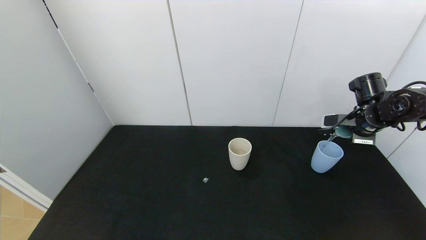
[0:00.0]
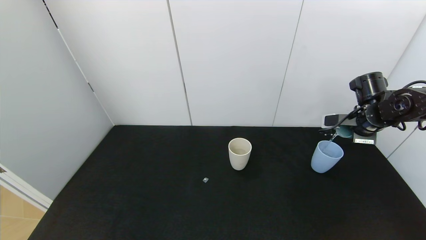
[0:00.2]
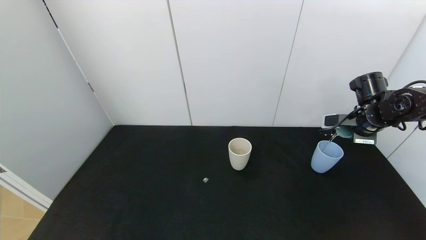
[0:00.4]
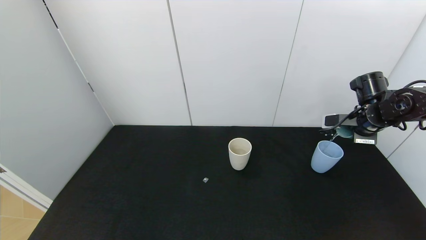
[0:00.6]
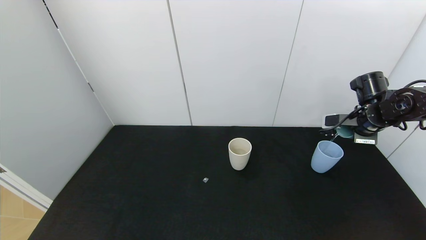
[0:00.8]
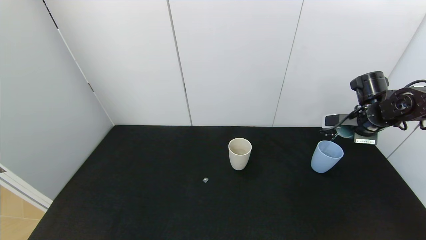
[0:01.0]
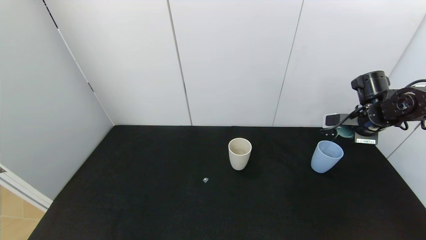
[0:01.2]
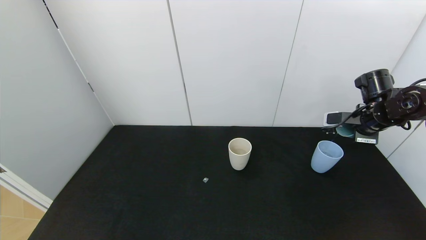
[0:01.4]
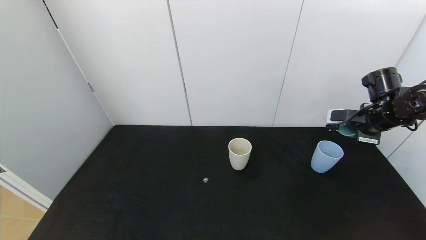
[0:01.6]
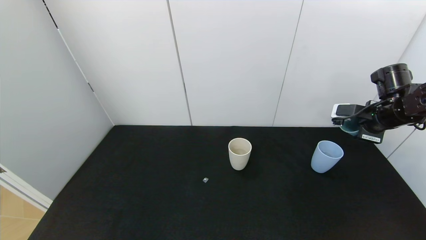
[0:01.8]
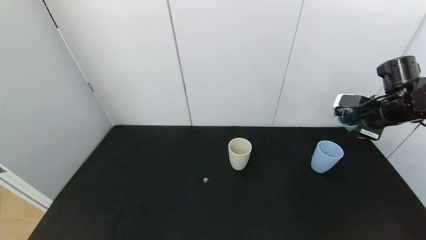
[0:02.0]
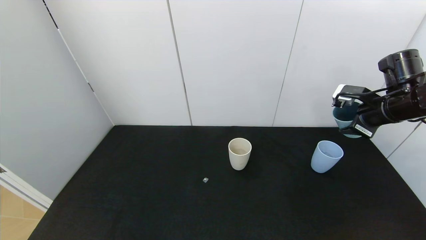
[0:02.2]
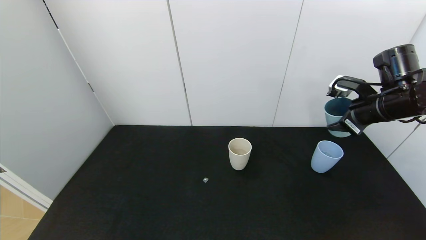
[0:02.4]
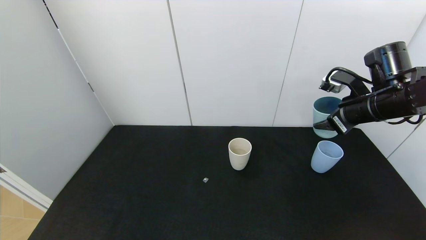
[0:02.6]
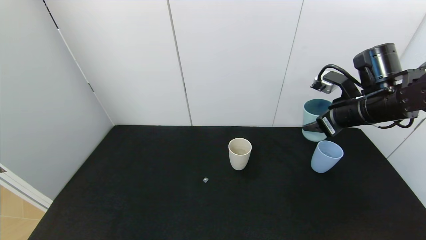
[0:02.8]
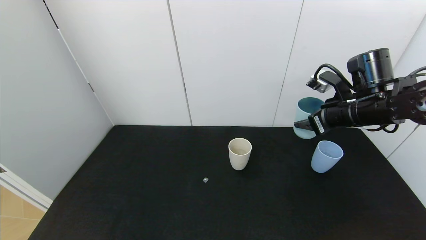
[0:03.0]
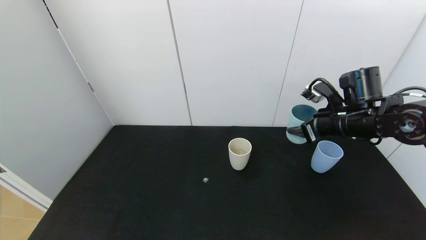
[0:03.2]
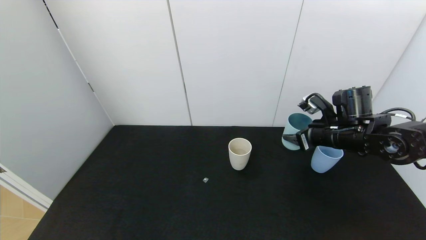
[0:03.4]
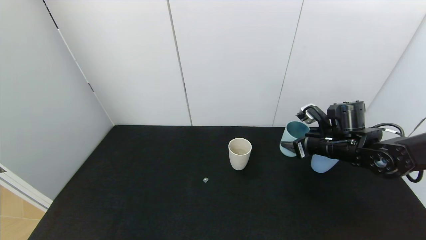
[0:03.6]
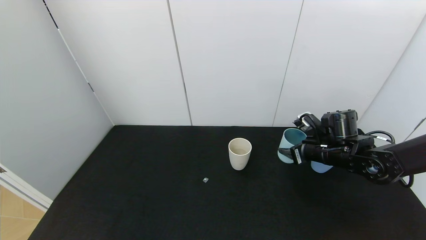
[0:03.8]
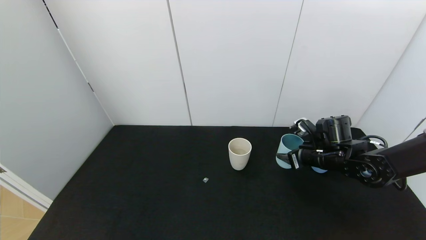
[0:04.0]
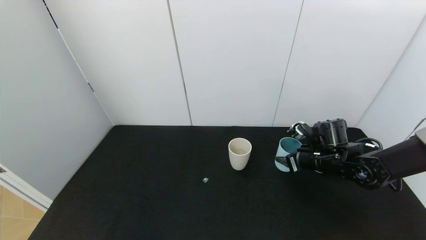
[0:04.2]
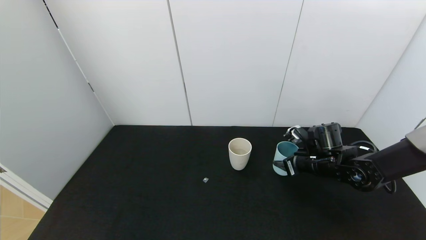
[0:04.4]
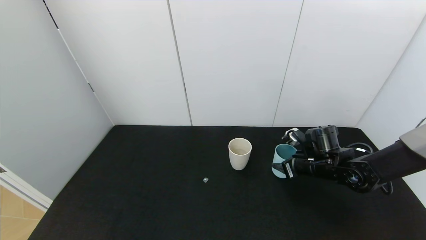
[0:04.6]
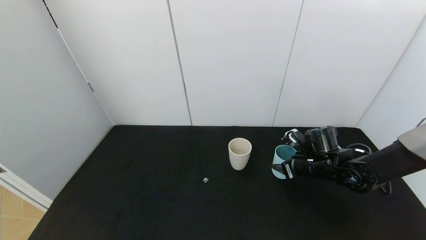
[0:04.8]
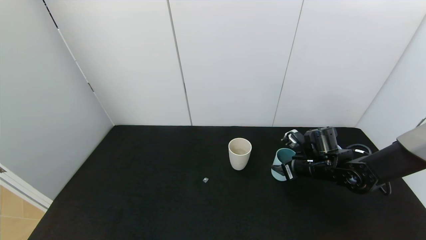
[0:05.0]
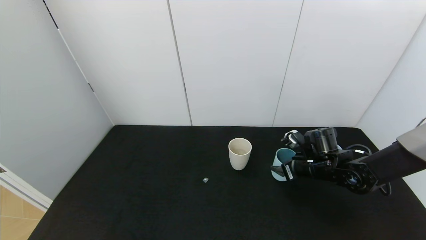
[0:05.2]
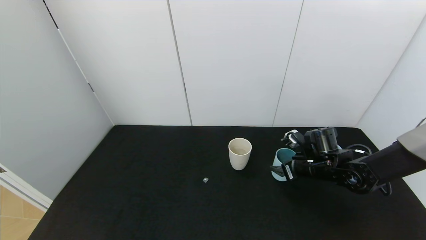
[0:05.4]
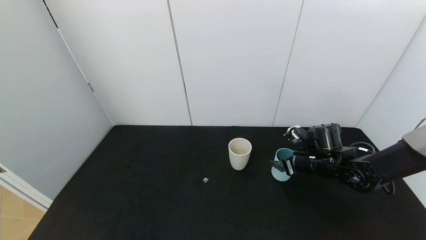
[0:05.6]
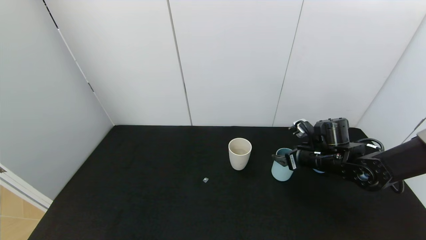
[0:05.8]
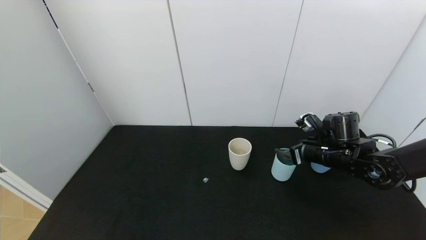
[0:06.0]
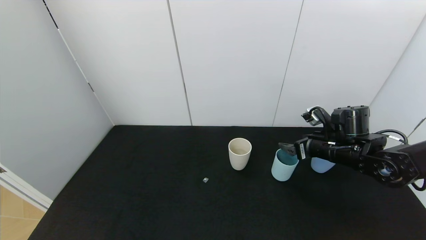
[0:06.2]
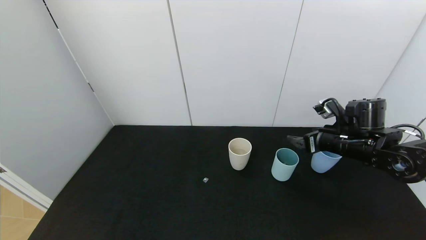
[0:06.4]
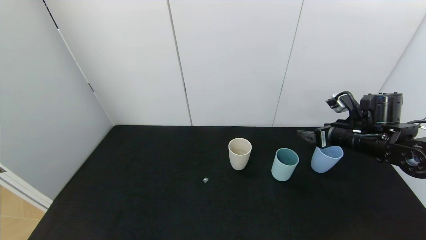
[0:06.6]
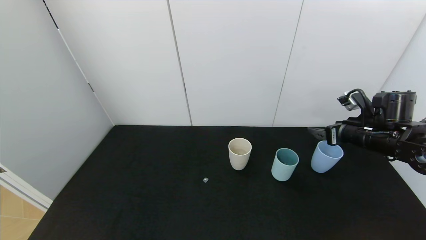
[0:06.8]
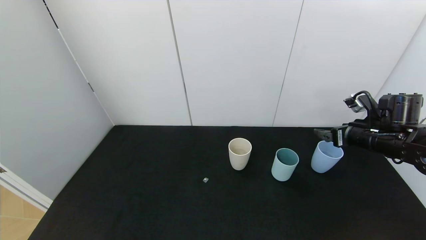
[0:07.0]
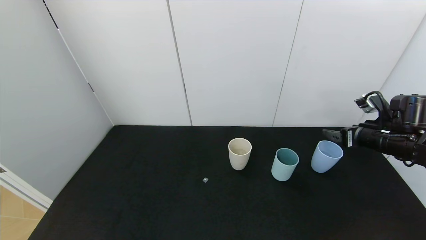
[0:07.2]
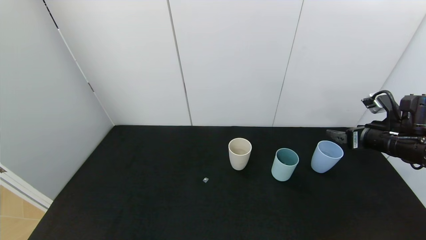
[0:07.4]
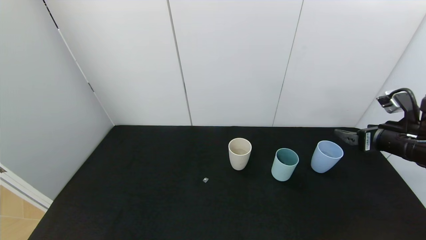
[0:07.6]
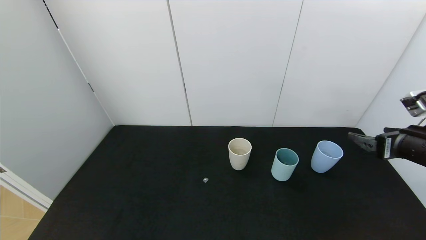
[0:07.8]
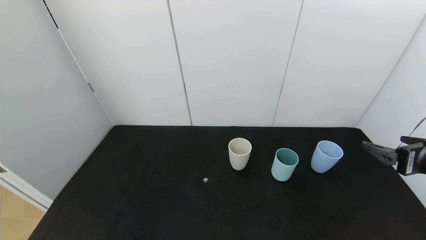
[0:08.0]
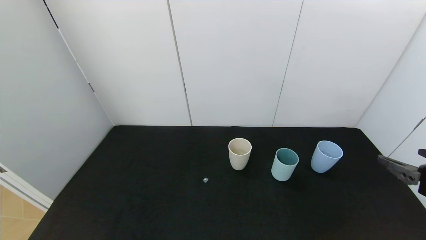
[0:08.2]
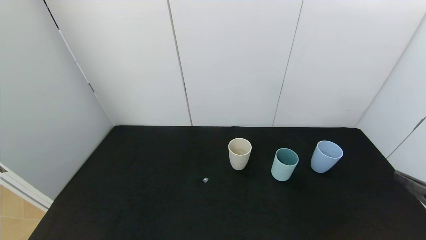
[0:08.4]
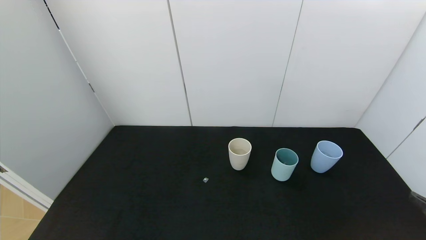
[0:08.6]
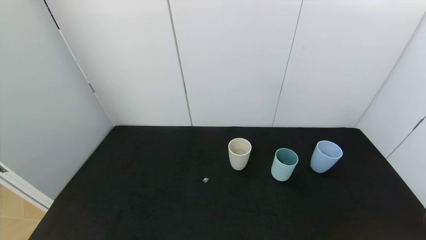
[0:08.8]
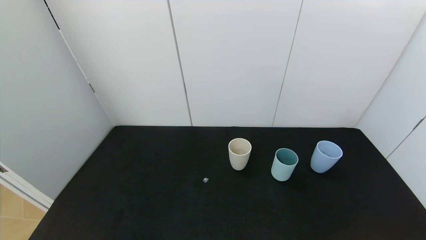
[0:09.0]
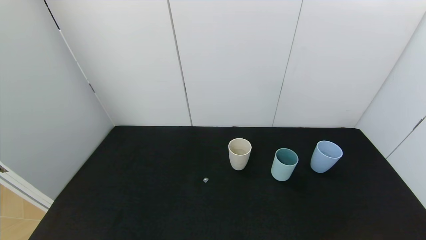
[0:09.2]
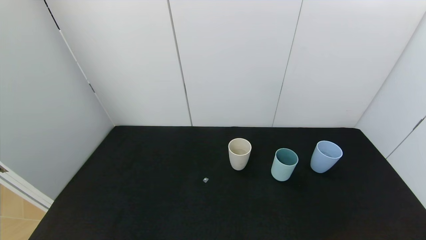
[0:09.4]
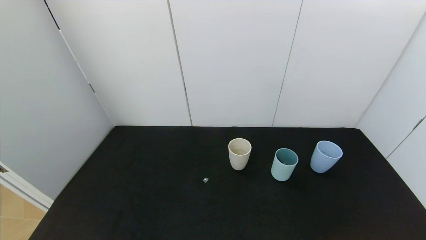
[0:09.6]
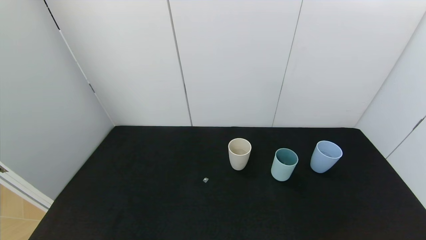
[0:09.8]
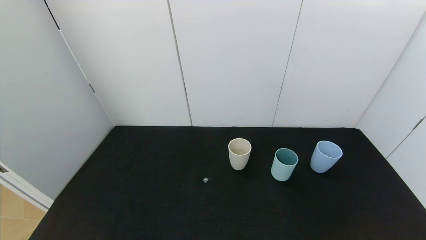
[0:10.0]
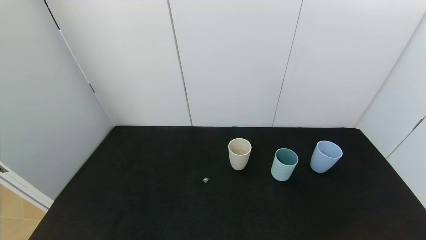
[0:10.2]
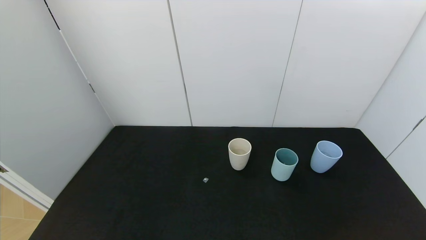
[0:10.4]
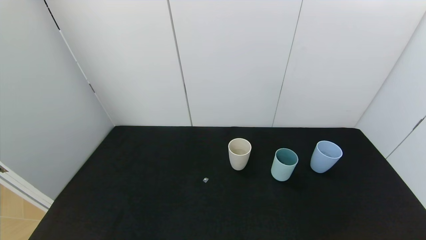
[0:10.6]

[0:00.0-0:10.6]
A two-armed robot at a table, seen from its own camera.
Task of the whole recording: use the gripper to pour the water into the other two cups on black table.
Step, 0:02.0 to 0:07.4: Place the green cup with the right gripper.
0:00.0 to 0:01.6: The grippers stay close to where they were, moving slightly.
0:01.6 to 0:03.0: The right gripper heads to the left, covering some 10 cm.
0:03.0 to 0:04.6: The right gripper shifts approximately 15 cm downward.
0:04.6 to 0:06.0: The right gripper opens its fingers.
0:06.0 to 0:07.6: The right gripper travels to the right, backward and upward by about 15 cm.
0:07.6 to 0:09.0: The right gripper heads backward, covering approximately 25 cm.

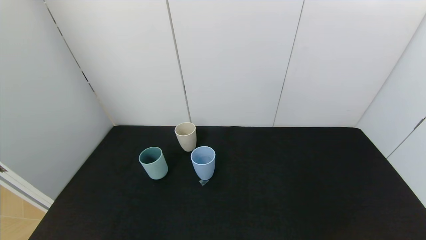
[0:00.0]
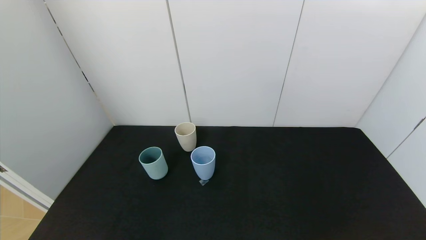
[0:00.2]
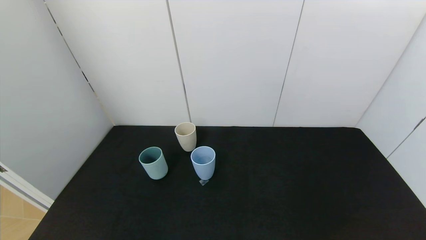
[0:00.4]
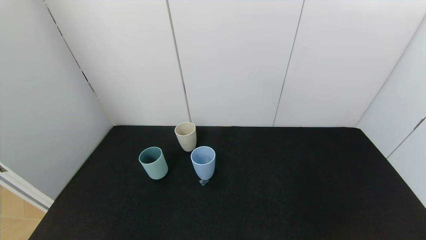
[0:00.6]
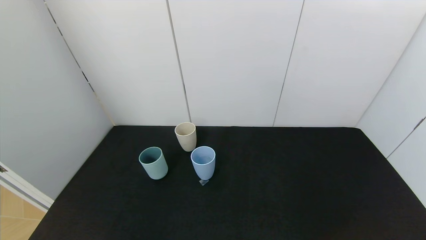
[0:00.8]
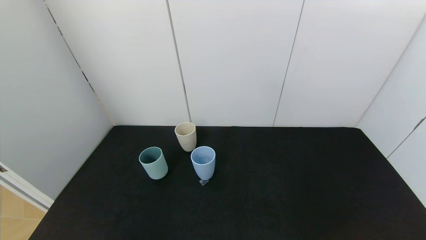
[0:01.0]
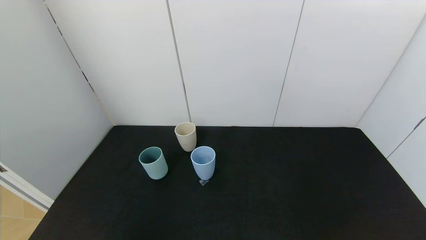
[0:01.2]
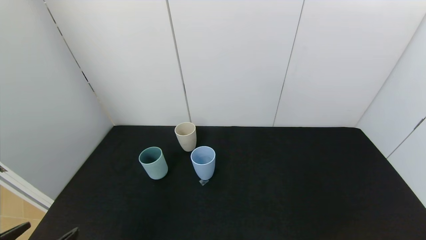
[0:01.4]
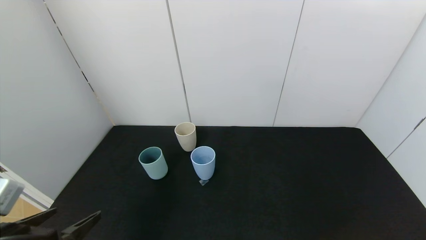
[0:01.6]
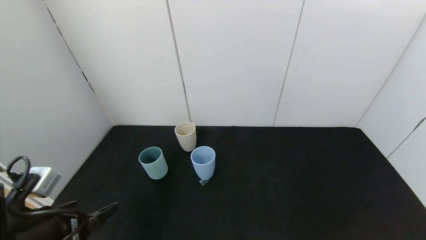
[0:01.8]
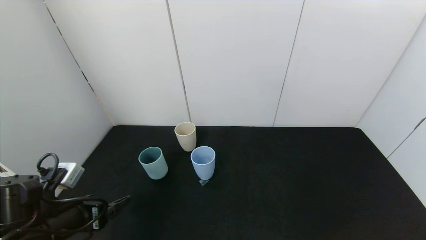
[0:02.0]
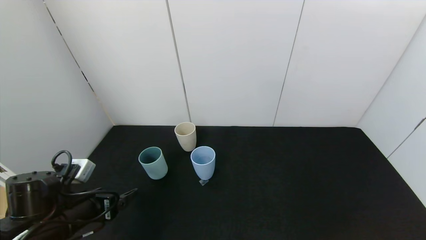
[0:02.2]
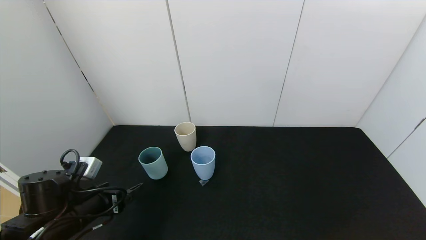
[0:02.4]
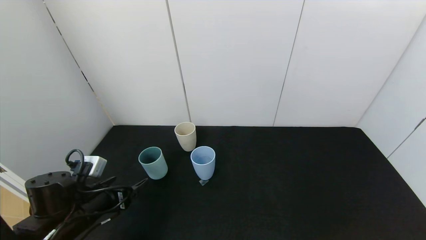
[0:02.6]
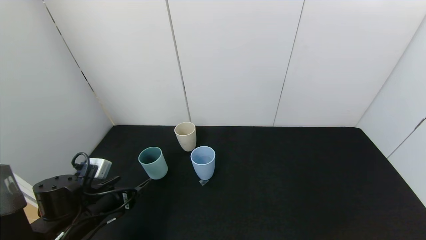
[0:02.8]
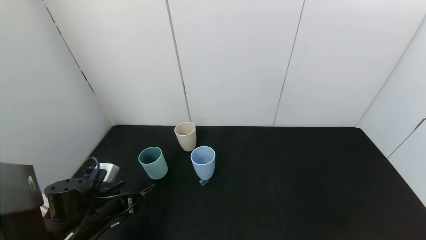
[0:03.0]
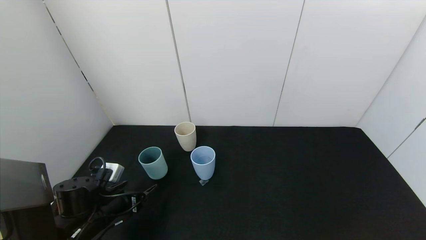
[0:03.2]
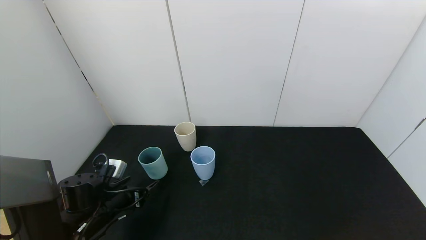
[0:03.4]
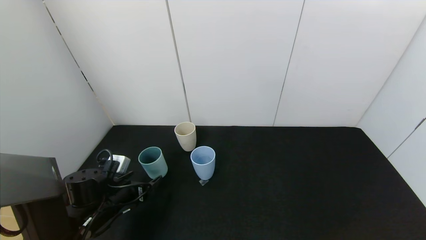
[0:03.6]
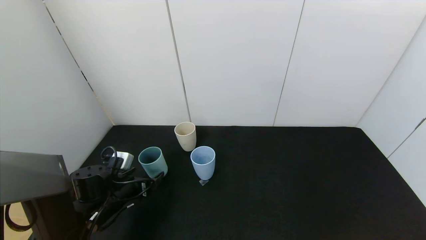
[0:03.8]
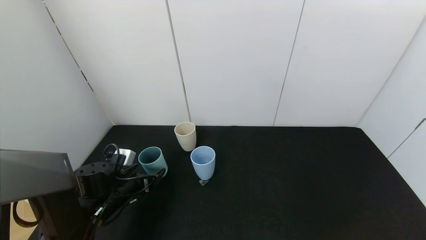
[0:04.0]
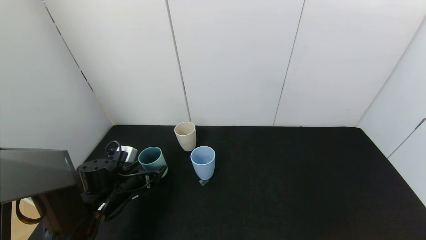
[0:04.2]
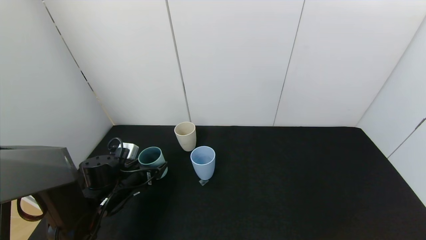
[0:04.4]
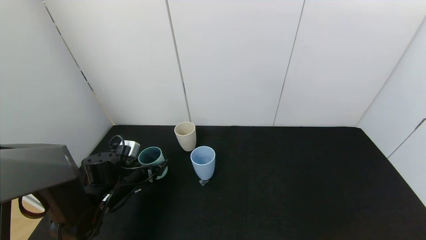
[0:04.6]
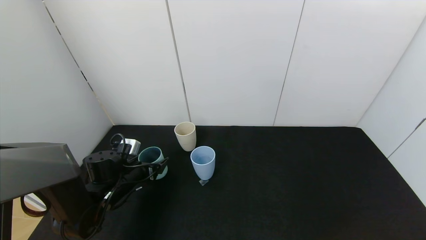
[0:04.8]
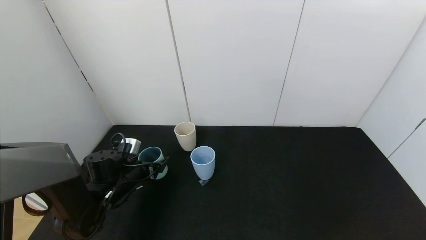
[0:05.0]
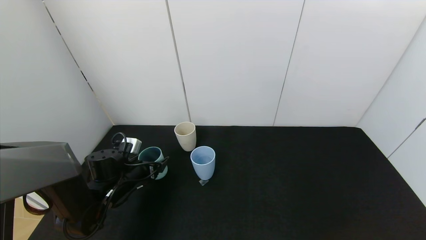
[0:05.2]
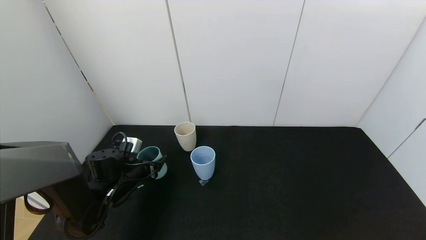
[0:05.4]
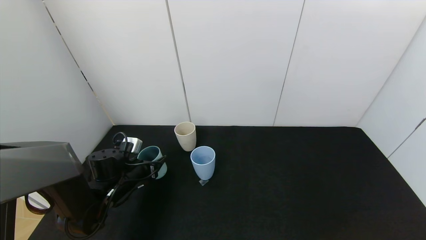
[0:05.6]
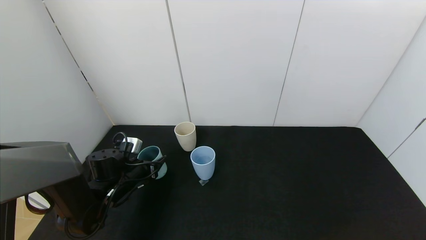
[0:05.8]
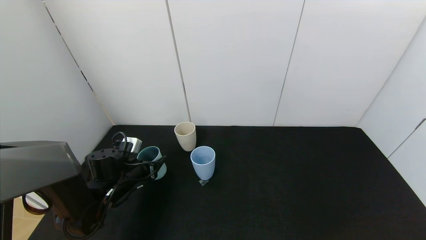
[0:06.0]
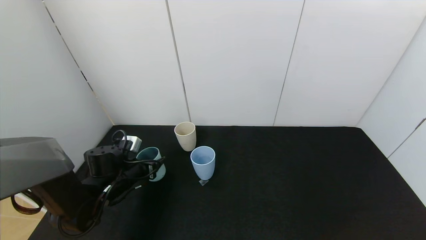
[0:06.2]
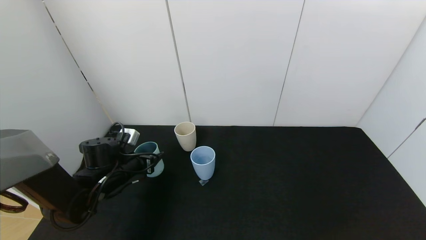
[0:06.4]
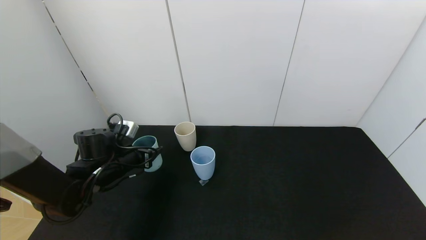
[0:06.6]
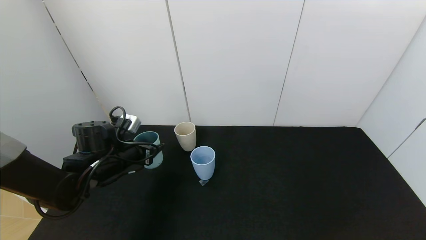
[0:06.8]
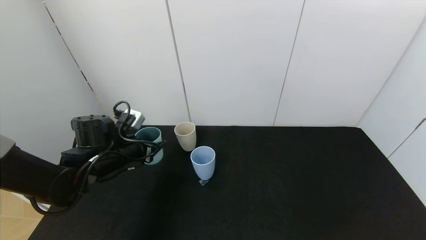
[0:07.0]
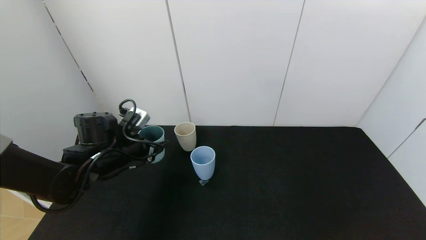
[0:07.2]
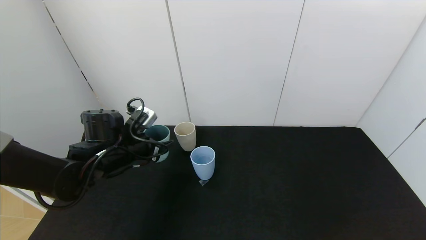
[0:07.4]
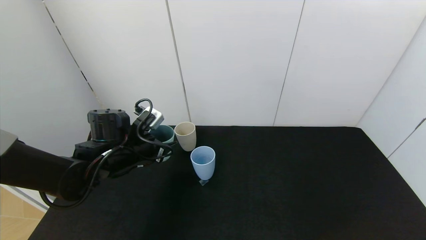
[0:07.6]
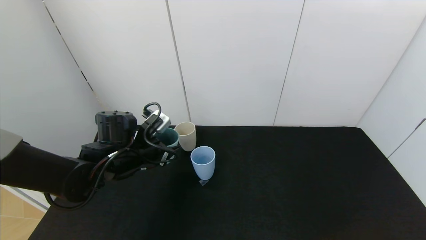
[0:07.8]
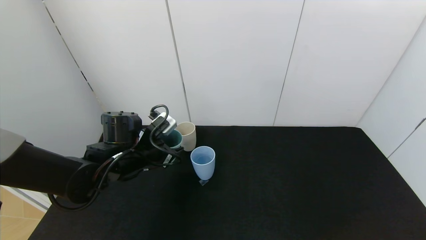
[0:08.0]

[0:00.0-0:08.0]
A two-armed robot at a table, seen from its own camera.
Task of the whole recording: use the gripper to pour the water into the other two cups on black table.
Step, 0:00.0 to 0:06.2: Pick up the green plastic cup with left gripper.
0:00.0 to 0:01.6: The left gripper heads forward, covering some 15 cm.
0:01.6 to 0:03.2: The left gripper shifts some 20 cm forward and downward.
0:03.2 to 0:04.8: The left gripper moves forward, approximately 10 cm.
0:04.8 to 0:06.4: The left gripper closes its fingers.
0:06.4 to 0:08.0: The left gripper heads to the right and upward, covering about 10 cm.
